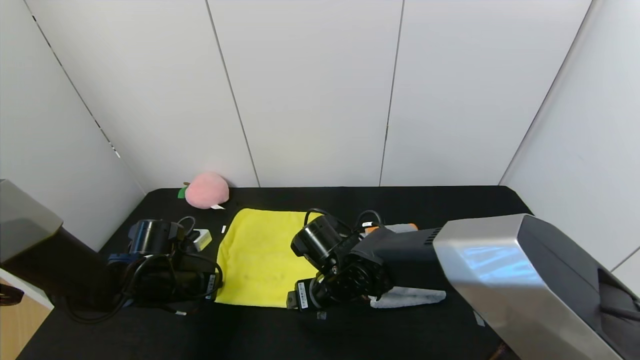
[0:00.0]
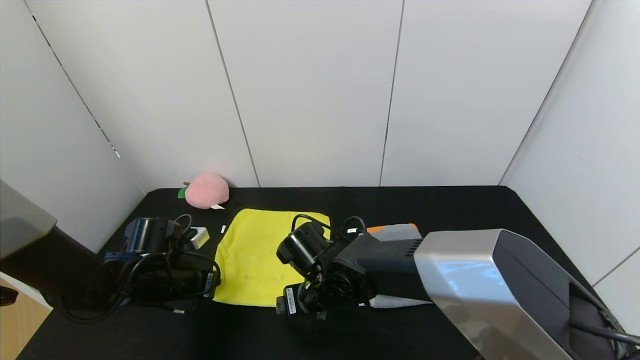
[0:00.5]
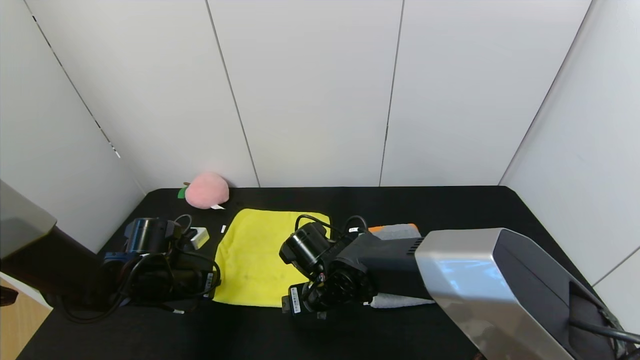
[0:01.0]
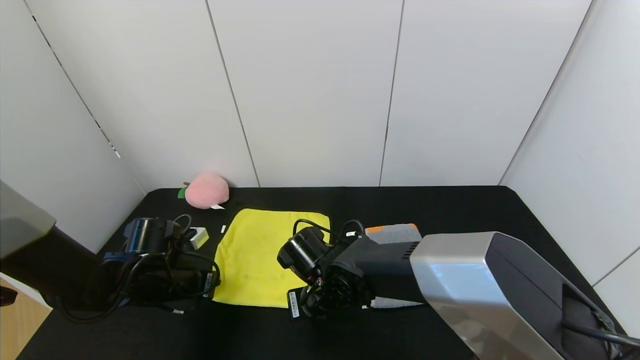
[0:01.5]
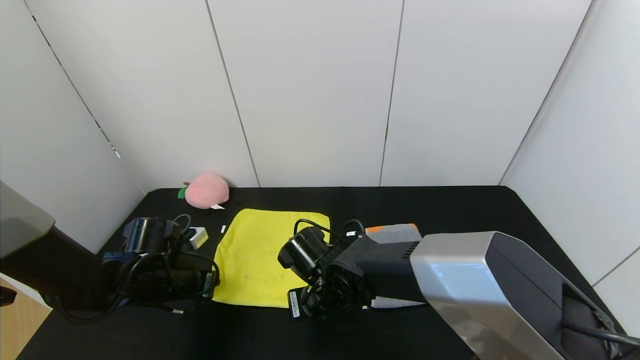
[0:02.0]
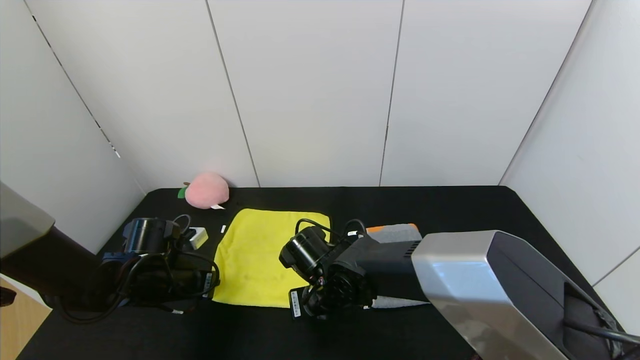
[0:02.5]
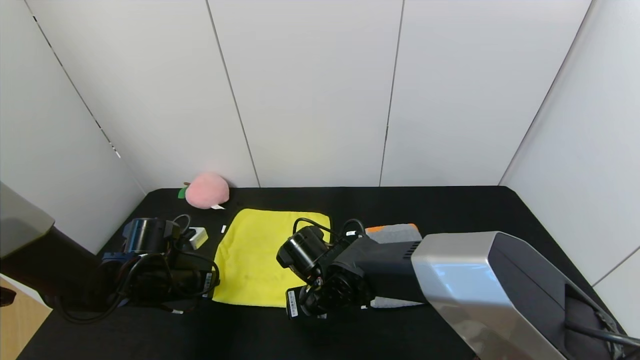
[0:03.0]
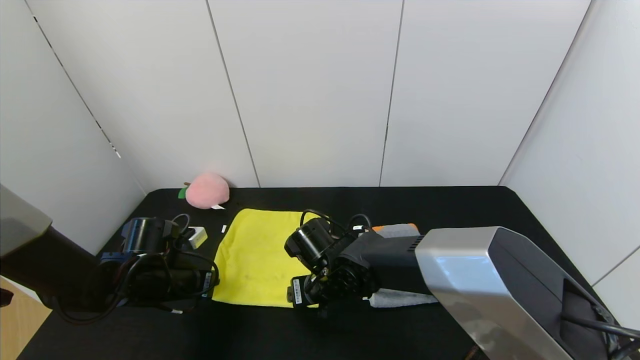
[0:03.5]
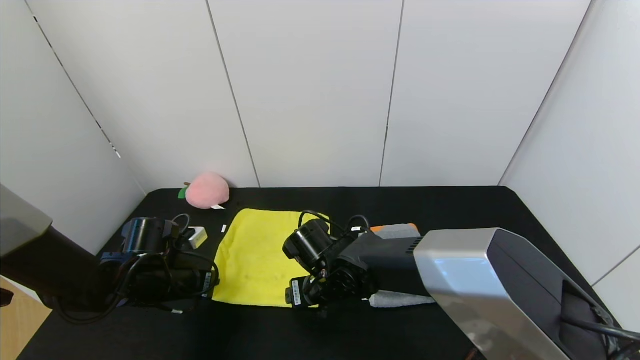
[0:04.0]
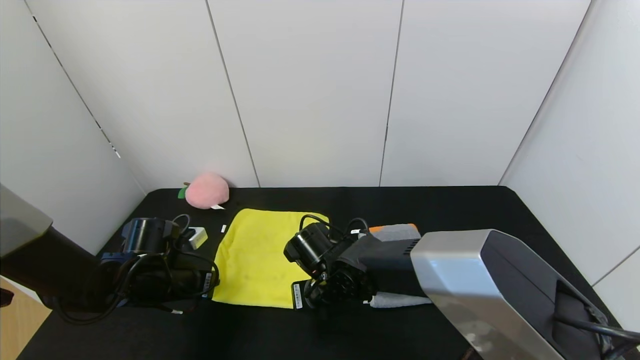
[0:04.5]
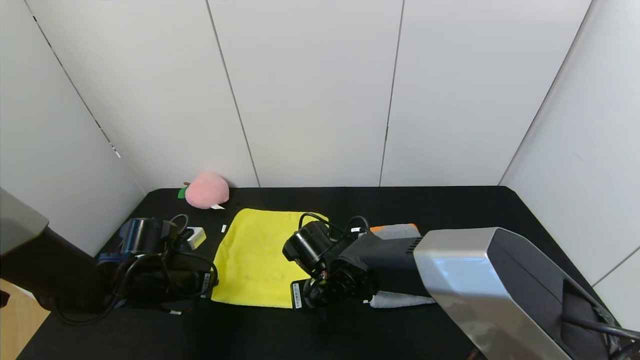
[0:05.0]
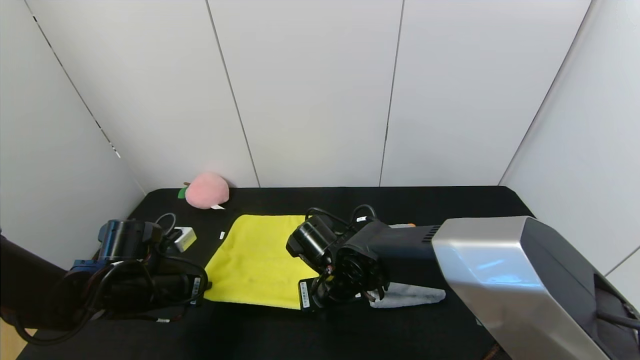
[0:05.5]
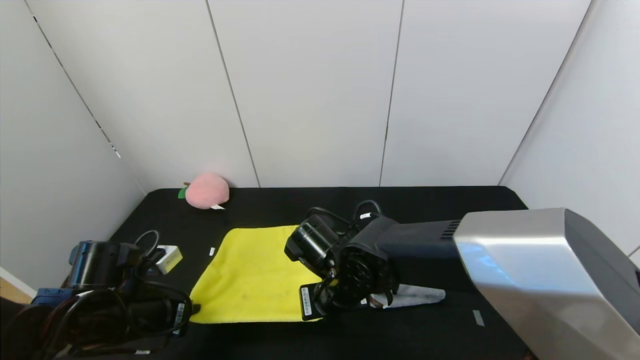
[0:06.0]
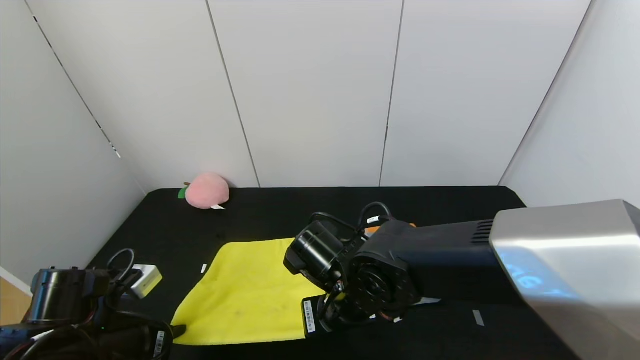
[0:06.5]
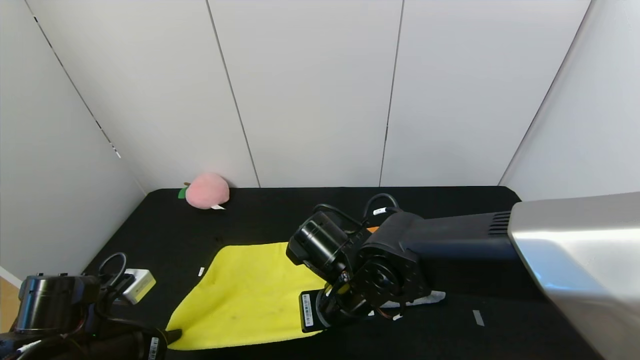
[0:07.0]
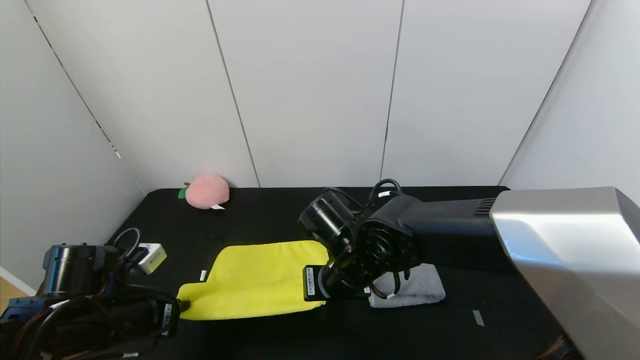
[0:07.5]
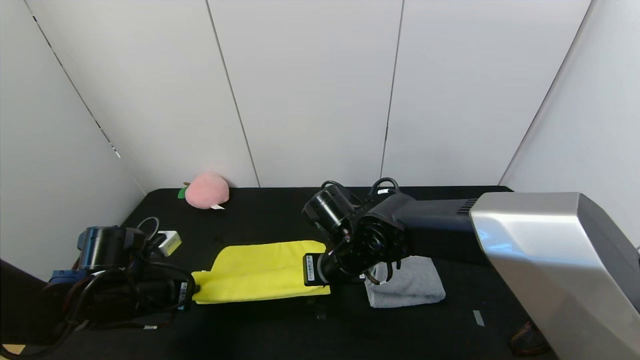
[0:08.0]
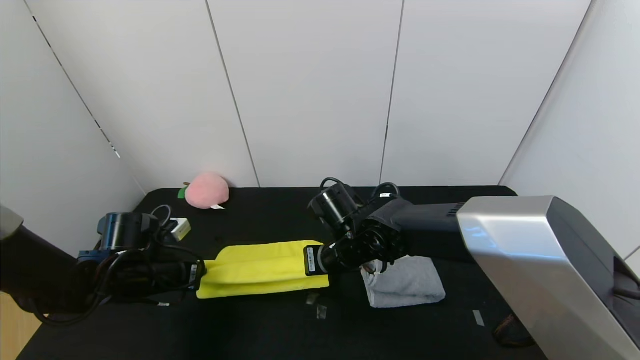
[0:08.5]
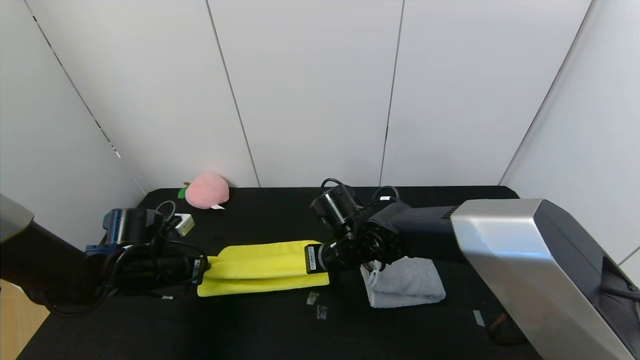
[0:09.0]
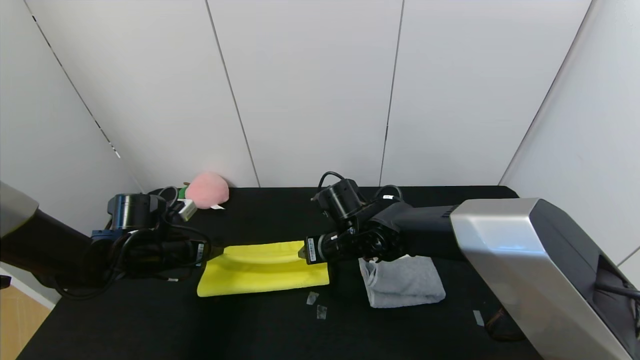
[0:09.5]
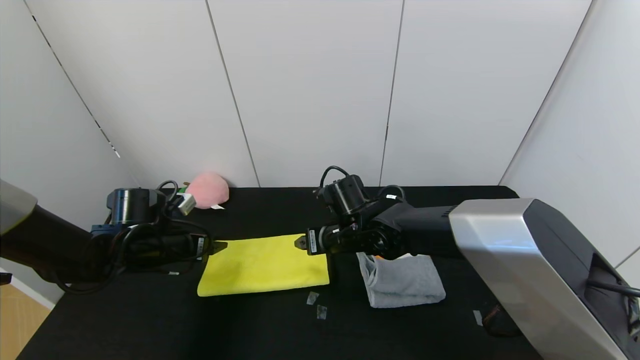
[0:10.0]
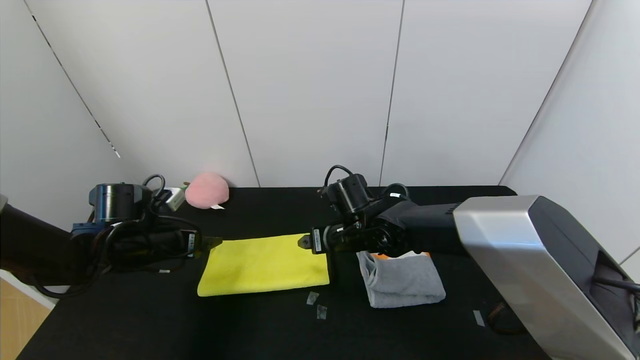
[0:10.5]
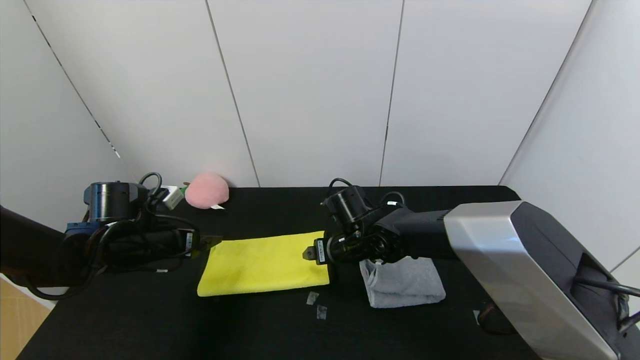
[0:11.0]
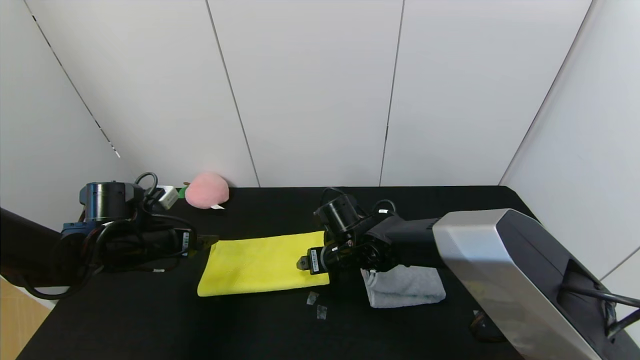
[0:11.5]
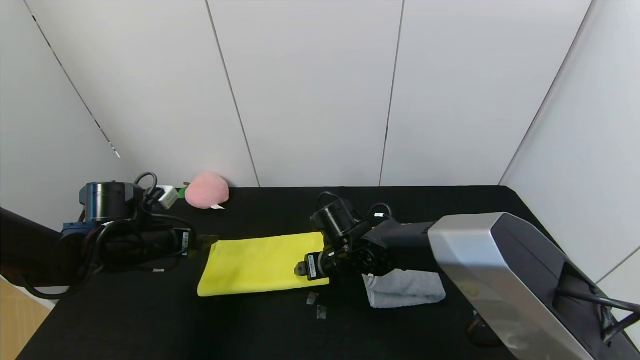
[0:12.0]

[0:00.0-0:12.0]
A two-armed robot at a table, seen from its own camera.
Task of the whole recording: Use the gripper to fold the yellow towel and grey towel in half twice,then put the yellow towel on the grey towel.
Step, 0:00.0 to 0:10.0: Fold the yellow towel upwards with the left gripper.
Step, 0:00.0 to 0:10.0: Fold the yellow towel upwards with the right gripper.
0:00.0 to 0:02.0: The right gripper closes.
0:02.0 to 0:04.0: The right gripper opens.
0:04.0 to 0:06.0: The right gripper moves about 5 cm, and closes its fingers; the left gripper heads backward, covering some 10 cm.
0:06.0 to 0:08.0: The grippers stay close to where they were, moving slightly.
0:08.0 to 0:10.0: Both grippers travel together forward, roughly 5 cm. The left gripper opens; the right gripper opens its fingers.
0:10.0 to 0:12.0: The grippers move only a little.

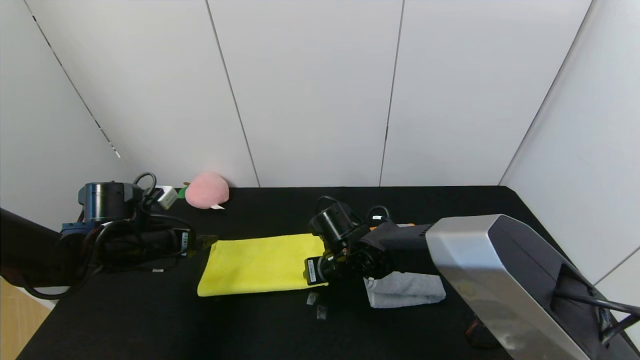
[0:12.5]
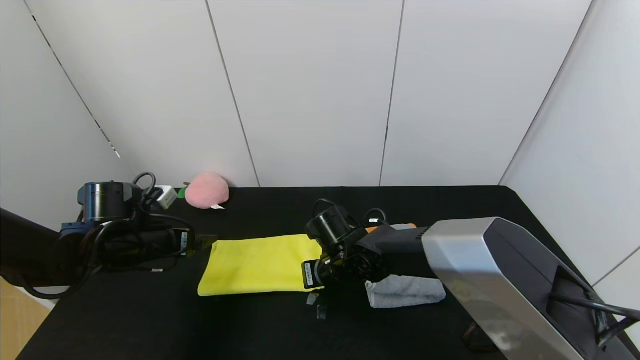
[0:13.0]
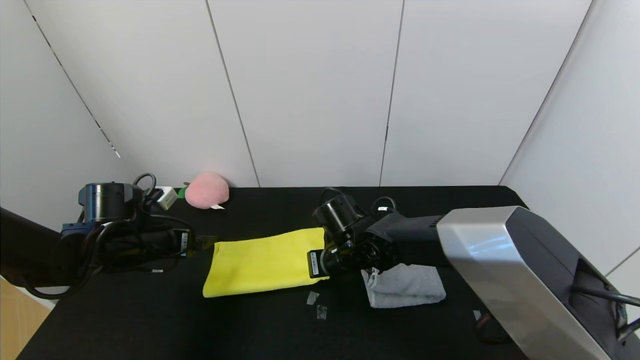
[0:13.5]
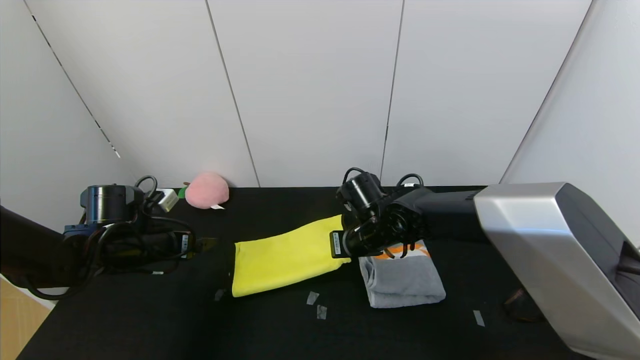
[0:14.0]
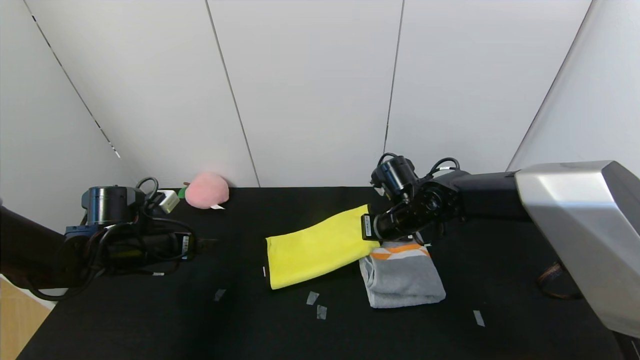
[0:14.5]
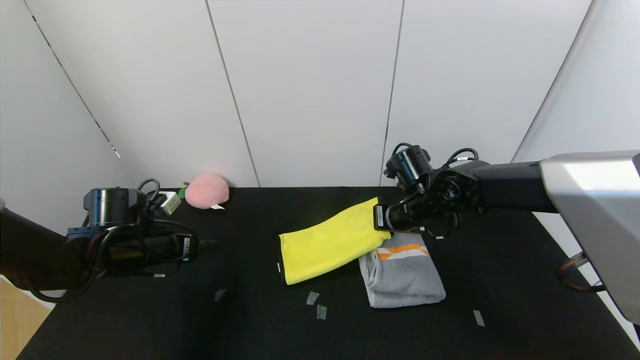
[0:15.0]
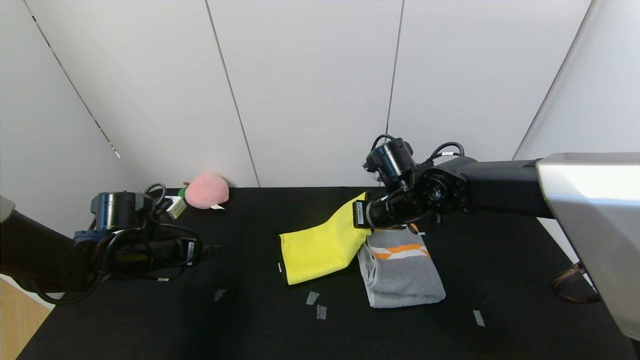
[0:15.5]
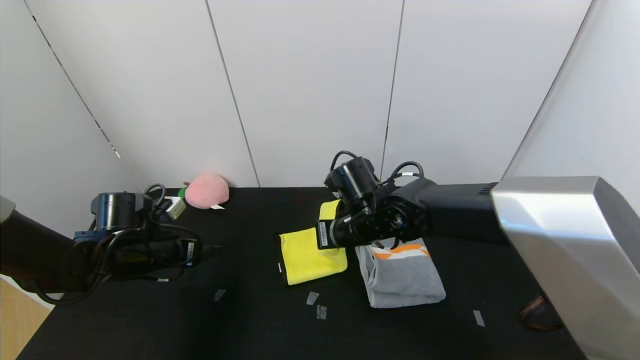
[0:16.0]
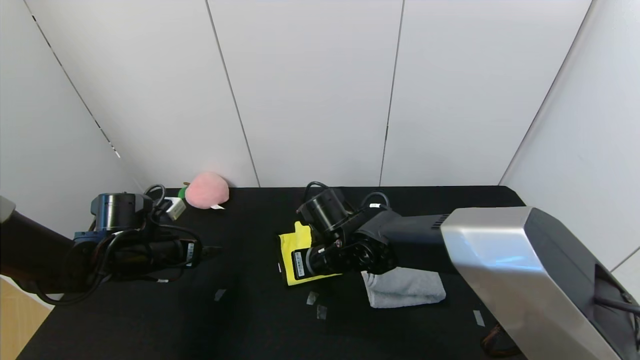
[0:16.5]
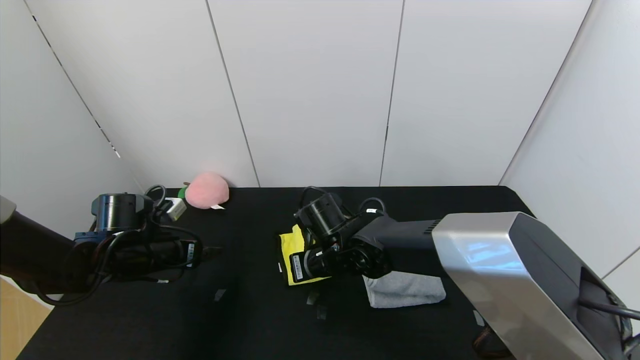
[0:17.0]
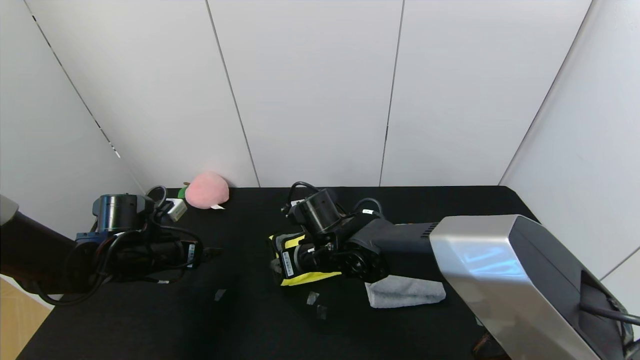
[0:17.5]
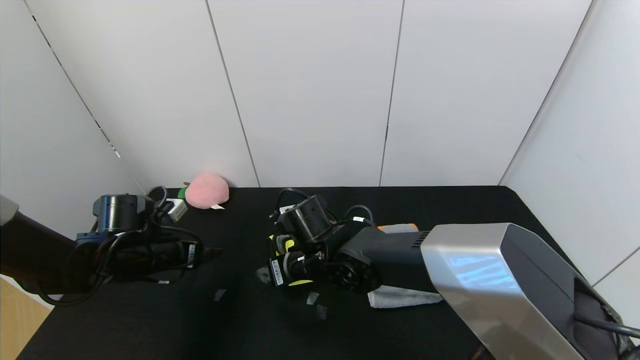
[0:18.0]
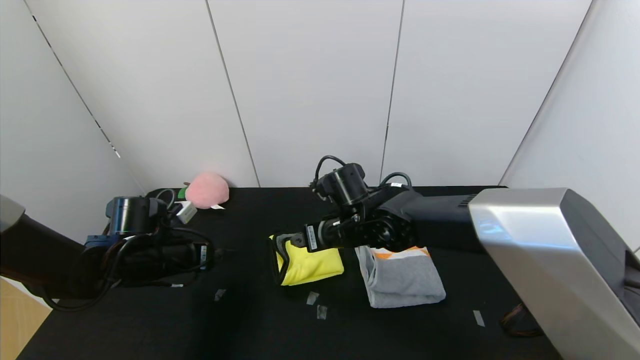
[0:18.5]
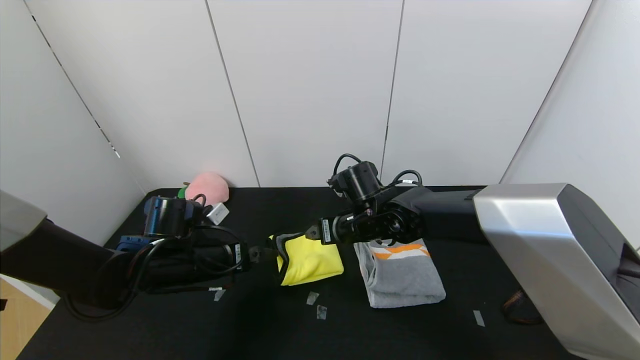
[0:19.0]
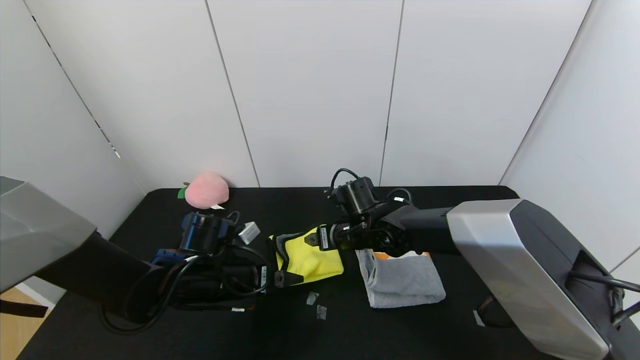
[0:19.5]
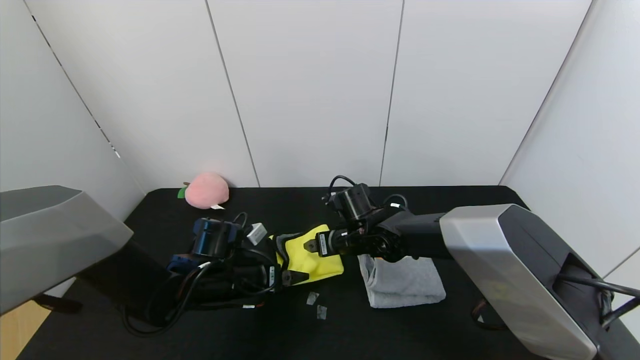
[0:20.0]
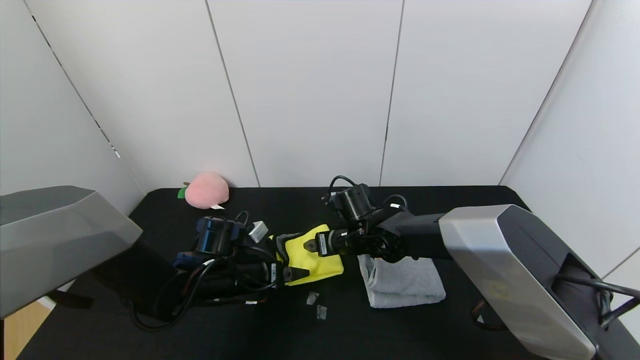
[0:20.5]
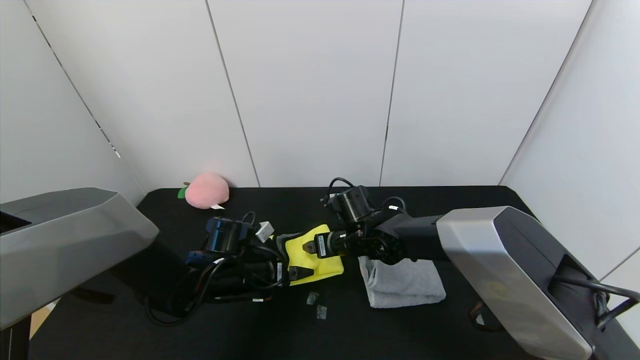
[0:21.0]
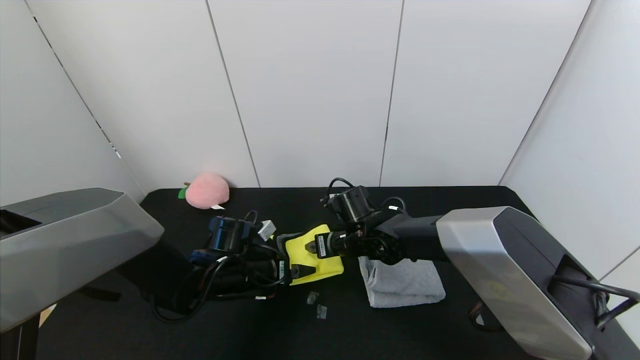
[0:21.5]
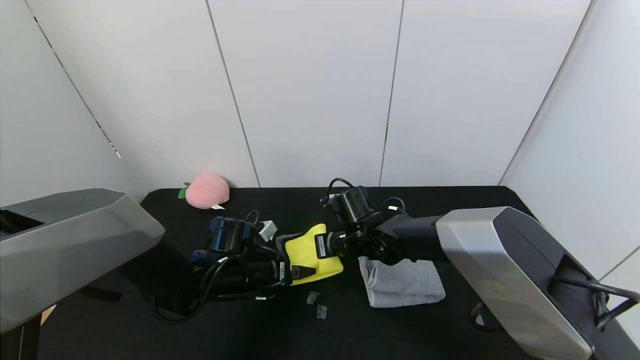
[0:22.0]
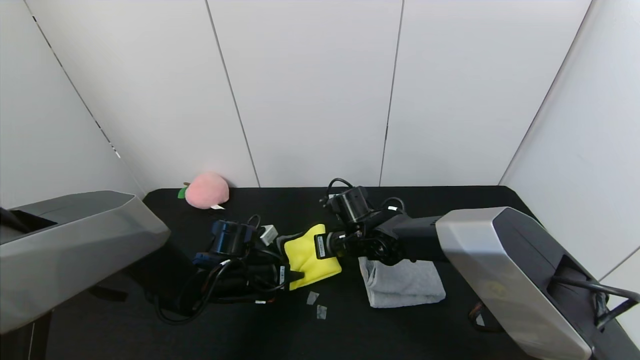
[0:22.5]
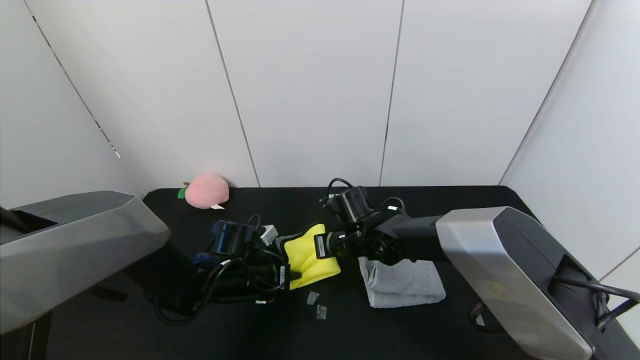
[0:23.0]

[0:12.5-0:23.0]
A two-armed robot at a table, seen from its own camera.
Task of the whole recording: Use the gripper to fold the yellow towel and grey towel in half twice,then put the yellow towel on the grey towel.
Step, 0:12.5 to 0:17.5: Fold the yellow towel from right to left with right gripper.
0:12.5 to 0:14.5: The right gripper shifts about 15 cm to the right and upward, and closes its fingers.
0:14.5 to 0:16.5: The right gripper heads to the left and backward, covering roughly 15 cm.
0:16.5 to 0:19.0: The left gripper heads to the right, covering some 10 cm. The right gripper shifts by approximately 5 cm, and opens up.
0:19.0 to 0:21.0: The grippers both shift downward by some 5 cm.
0:21.0 to 0:23.0: The right gripper closes up, while the left gripper closes its fingers.
